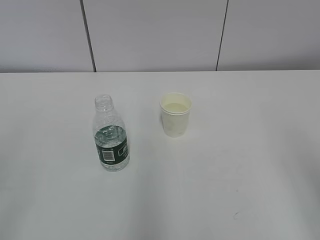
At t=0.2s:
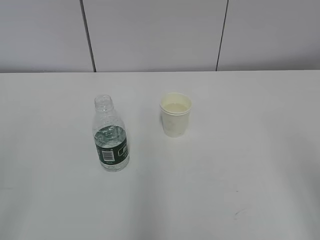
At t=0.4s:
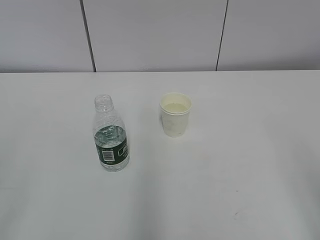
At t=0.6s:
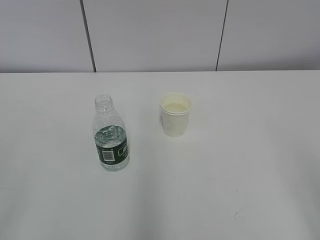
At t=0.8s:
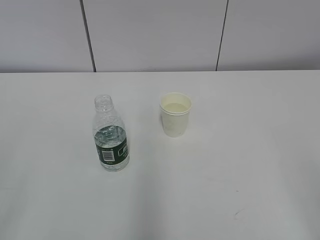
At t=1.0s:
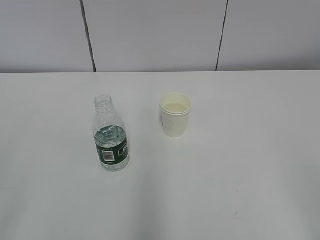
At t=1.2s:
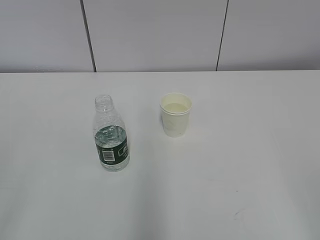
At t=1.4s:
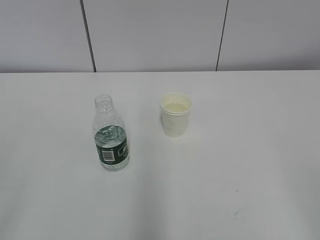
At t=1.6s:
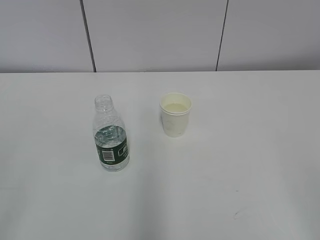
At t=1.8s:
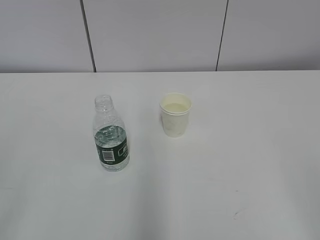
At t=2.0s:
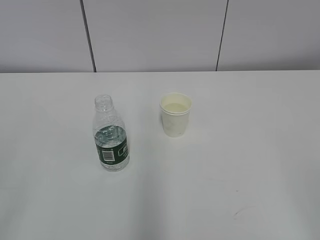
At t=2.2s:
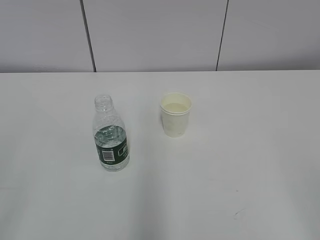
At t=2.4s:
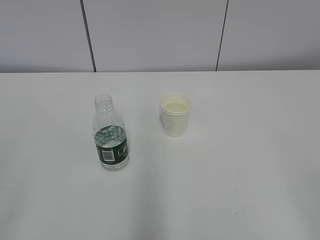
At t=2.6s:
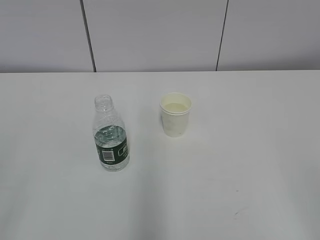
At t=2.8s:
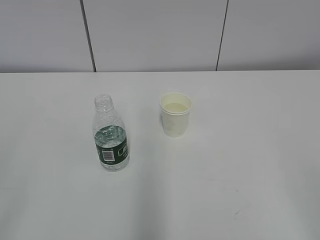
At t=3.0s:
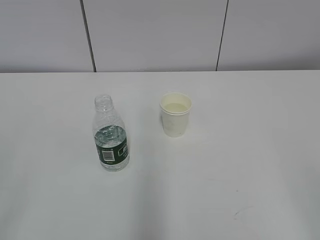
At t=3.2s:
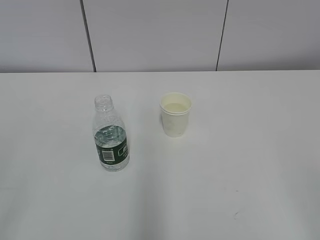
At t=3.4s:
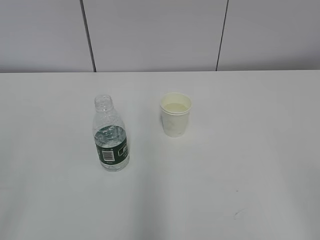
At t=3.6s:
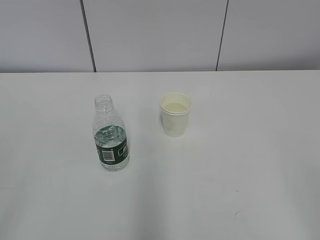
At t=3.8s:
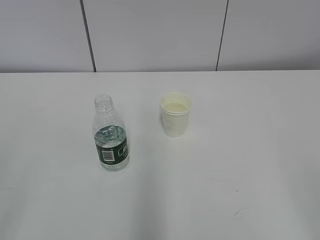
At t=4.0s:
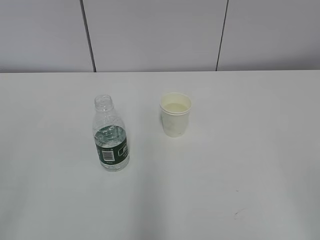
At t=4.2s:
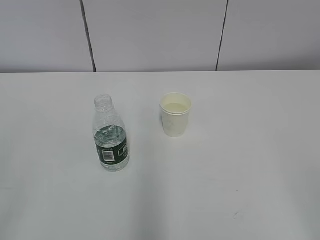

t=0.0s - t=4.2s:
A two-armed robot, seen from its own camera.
t=1.4s - t=4.2s: The two grippers keep their place.
